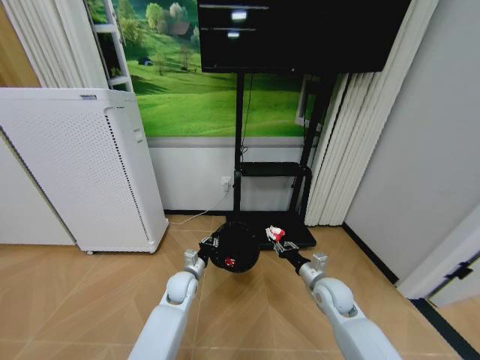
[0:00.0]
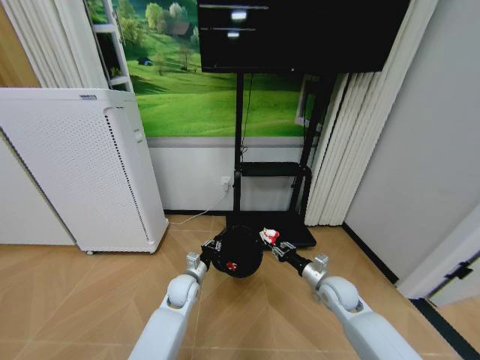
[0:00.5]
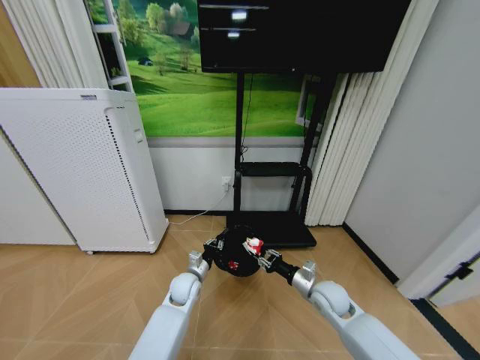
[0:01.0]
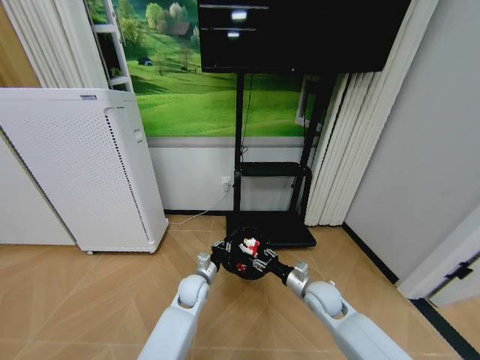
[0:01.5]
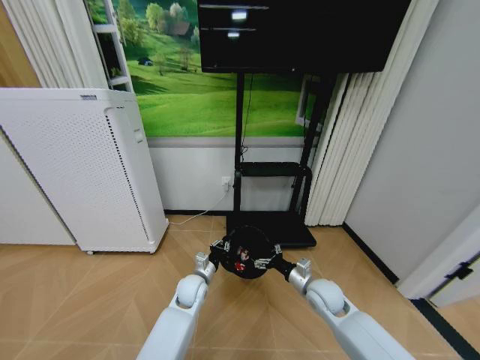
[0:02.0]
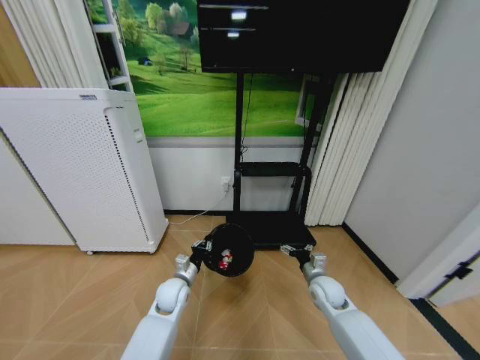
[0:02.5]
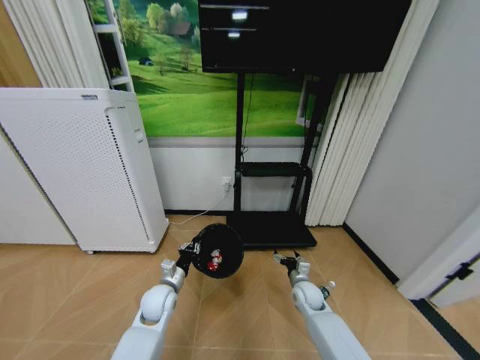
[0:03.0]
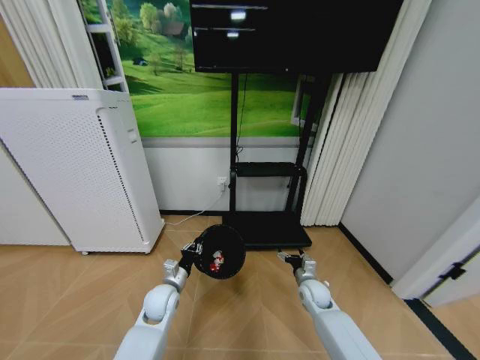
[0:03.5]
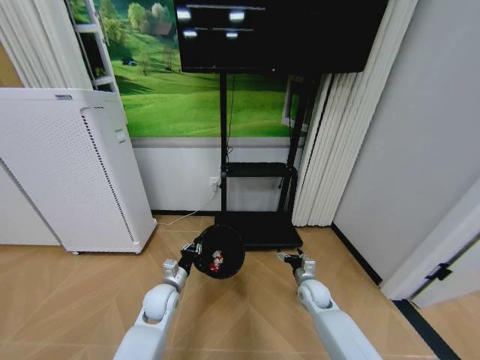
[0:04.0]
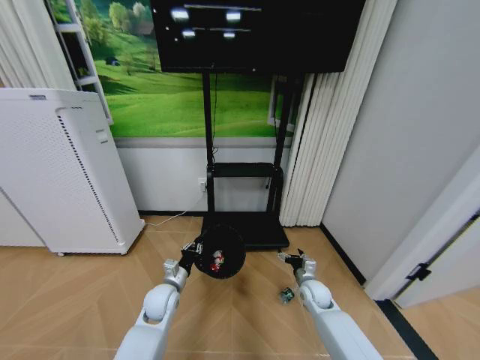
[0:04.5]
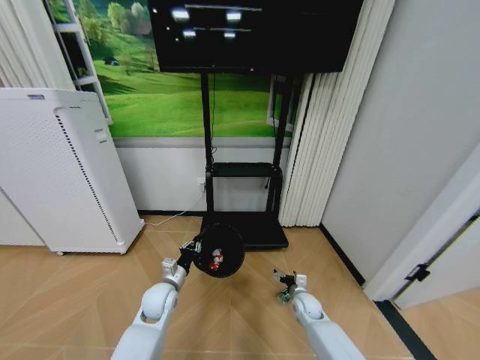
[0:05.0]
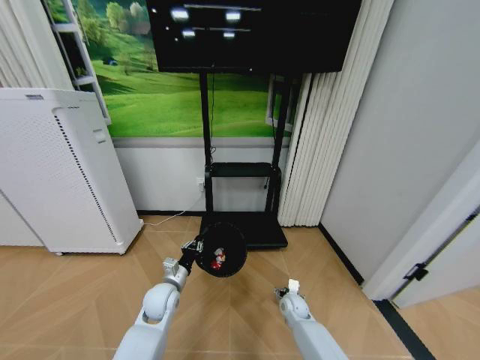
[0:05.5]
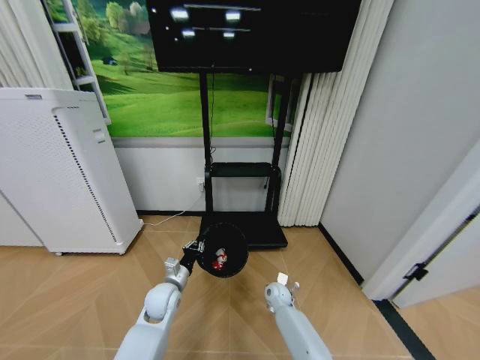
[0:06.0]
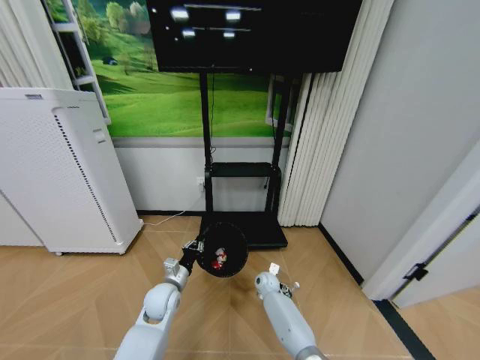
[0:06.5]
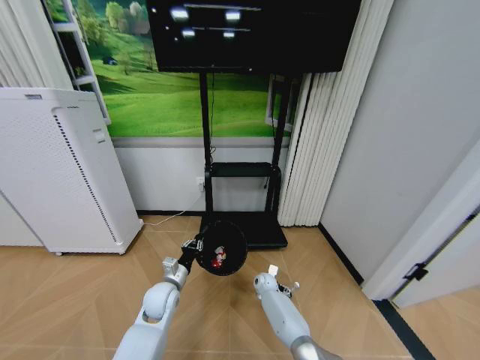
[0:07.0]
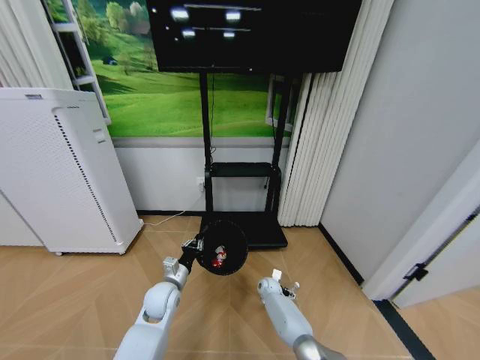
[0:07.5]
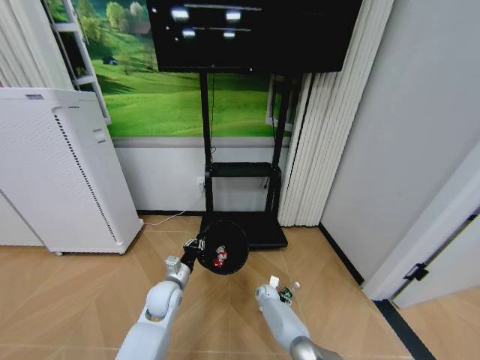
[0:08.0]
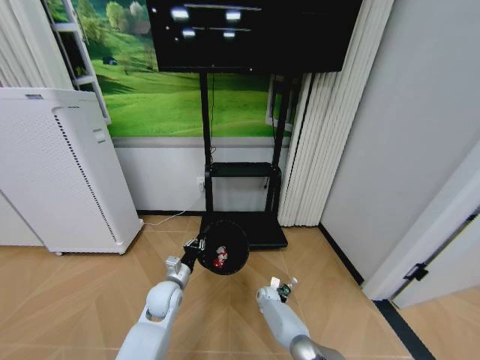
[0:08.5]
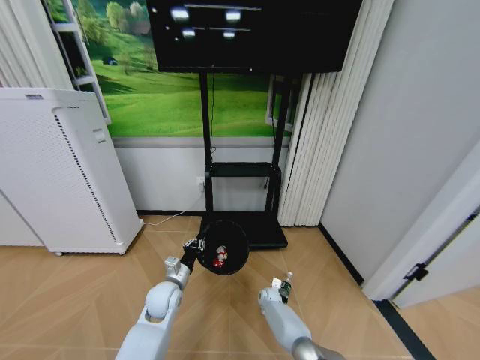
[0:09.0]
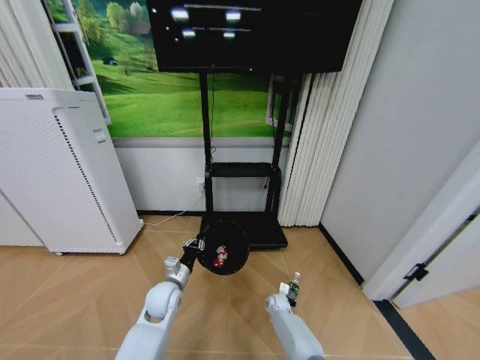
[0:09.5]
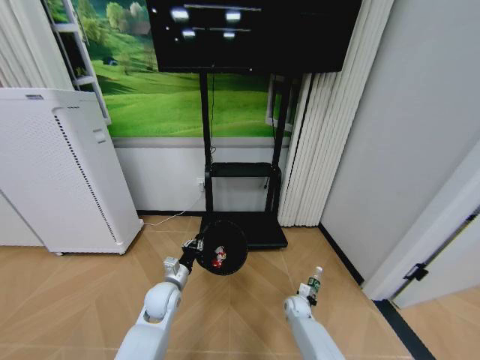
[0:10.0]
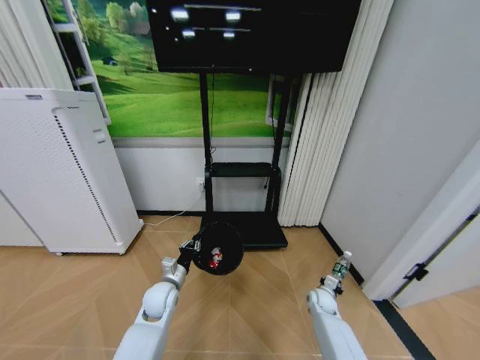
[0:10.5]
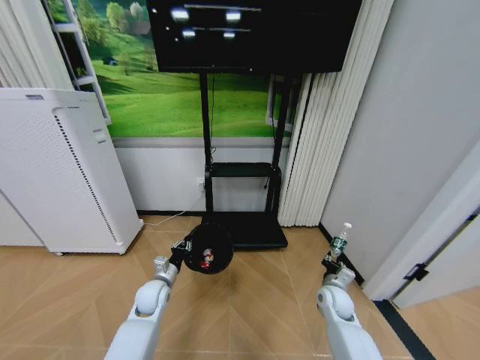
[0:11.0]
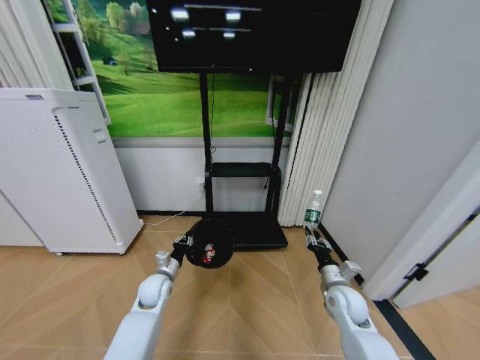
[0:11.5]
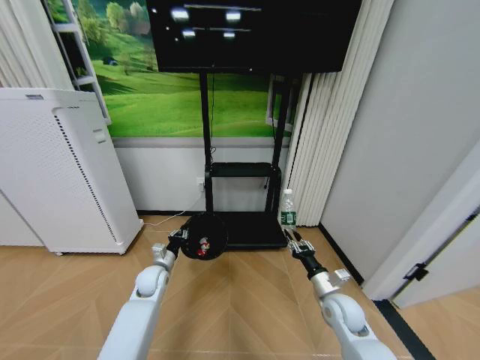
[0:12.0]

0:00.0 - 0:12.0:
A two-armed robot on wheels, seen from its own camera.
Task of the whole recording: Pick up the trash bin and place the garbage on the floor into it.
0:00.0 - 0:02.0: The right gripper opens.
0:02.0 - 0:04.0: The right gripper shifts some 10 cm downward. Meanwhile the left gripper goes about 10 cm to the left.
0:04.0 - 0:06.0: The right gripper moves to the left and downward, roughly 10 cm.
0:06.0 - 0:08.0: The right gripper travels downward by roughly 10 cm.
0:08.0 - 0:10.0: The right gripper heads to the right and backward, covering about 10 cm, and closes its fingers.
0:10.0 - 0:12.0: The right gripper shifts approximately 25 cm upward and backward. The left gripper moves forward and to the left, some 10 cm.

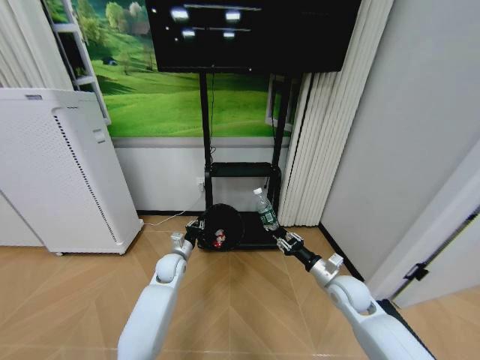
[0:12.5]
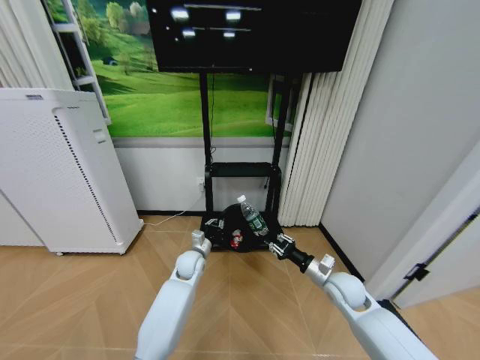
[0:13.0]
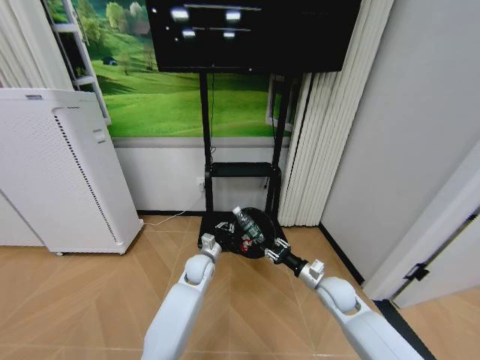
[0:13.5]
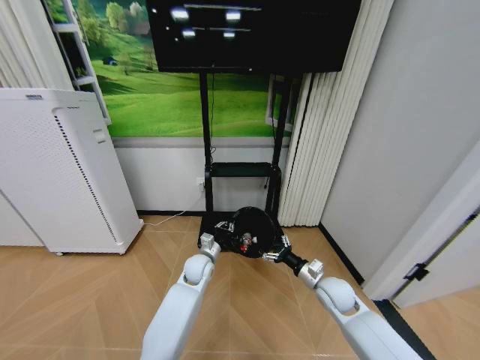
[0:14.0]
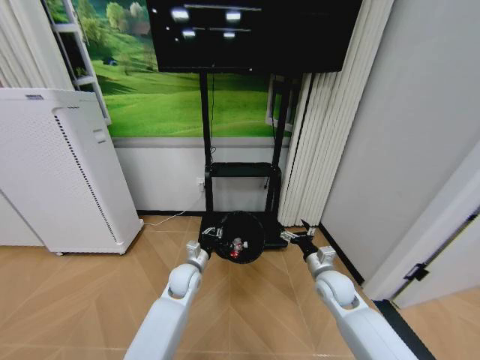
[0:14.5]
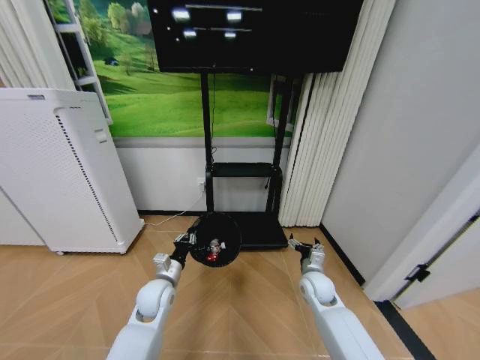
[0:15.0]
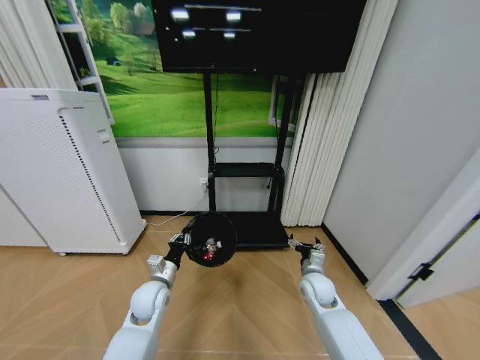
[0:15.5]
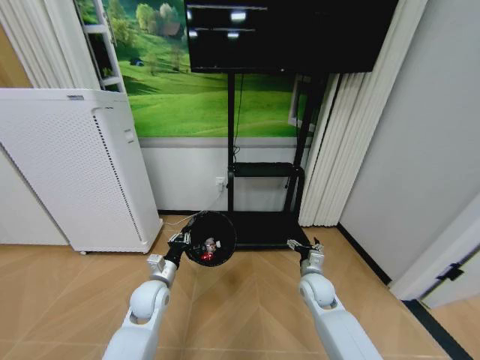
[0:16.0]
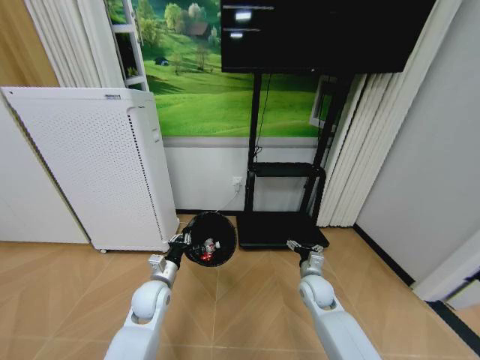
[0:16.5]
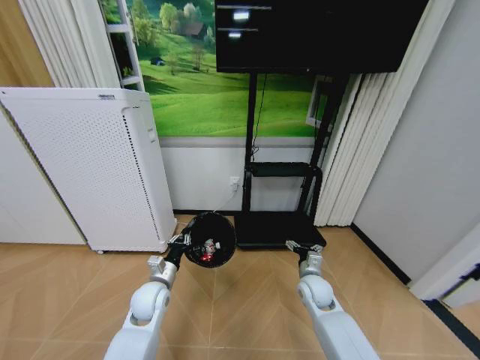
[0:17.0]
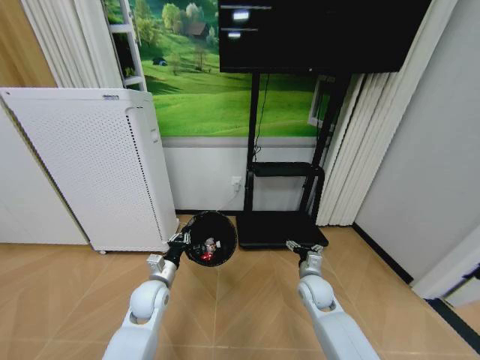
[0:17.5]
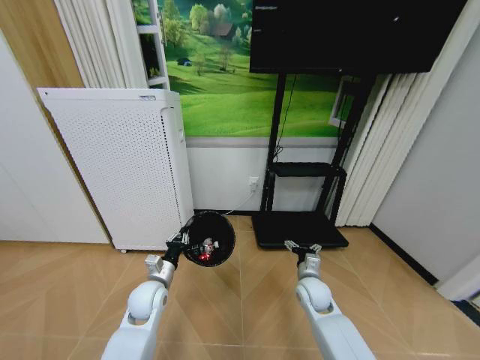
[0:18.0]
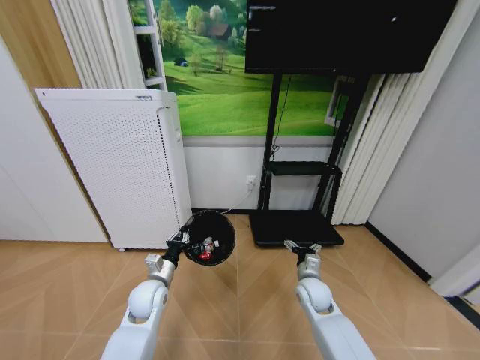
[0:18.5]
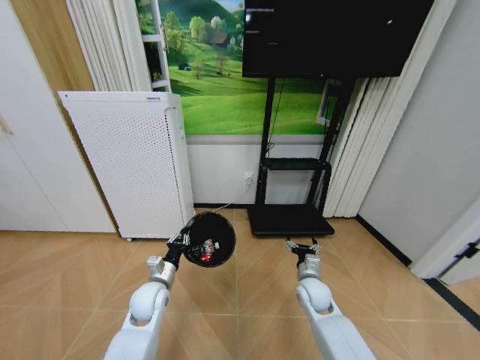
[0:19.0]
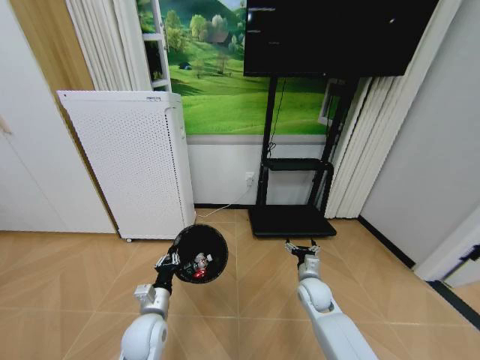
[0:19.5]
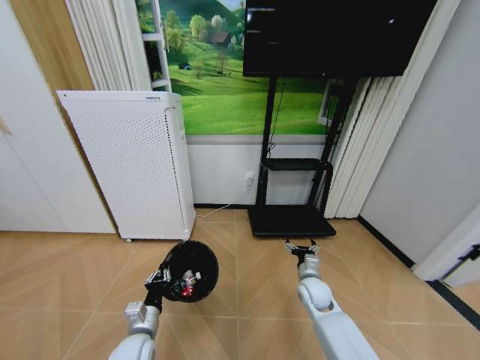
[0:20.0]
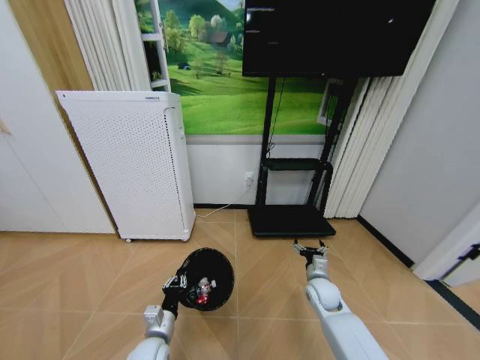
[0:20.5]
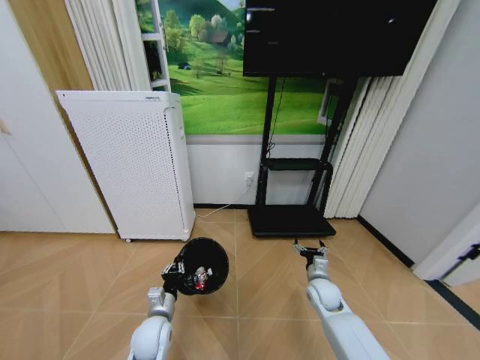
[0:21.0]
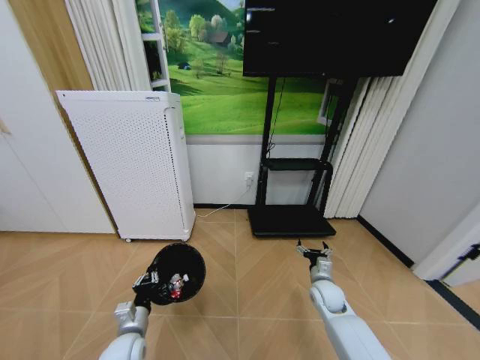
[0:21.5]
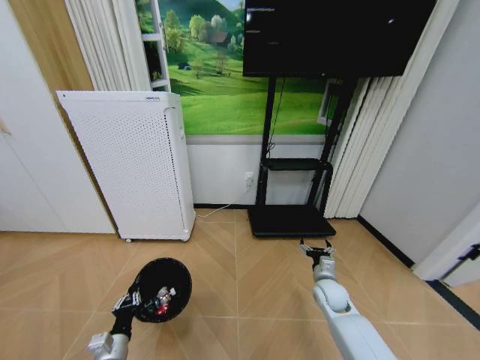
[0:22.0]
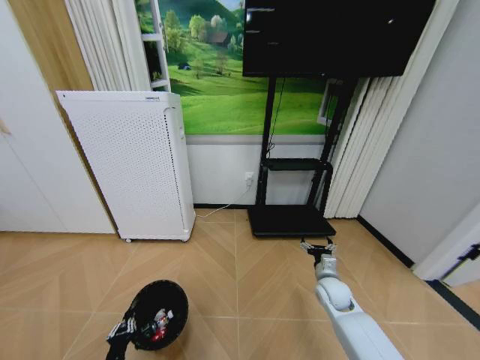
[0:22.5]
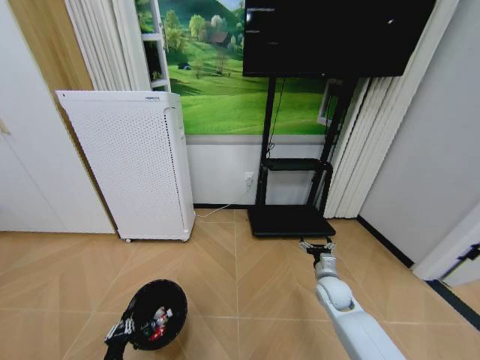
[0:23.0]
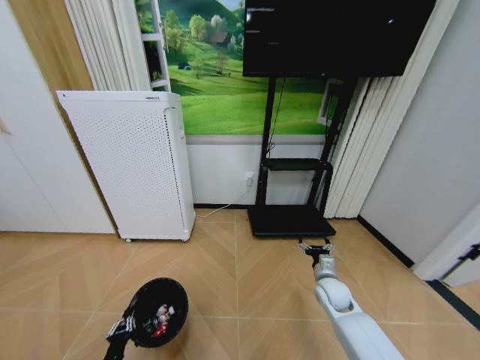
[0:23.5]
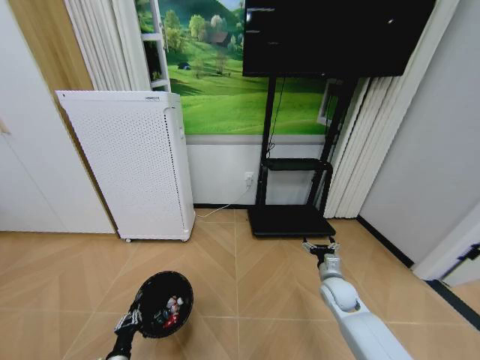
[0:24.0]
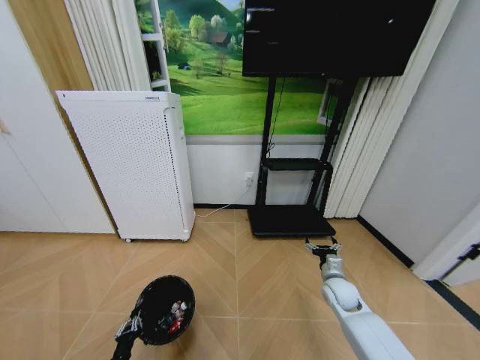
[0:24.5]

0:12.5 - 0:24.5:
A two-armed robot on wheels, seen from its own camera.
Task of the whole recording: Pick up the trash bin and place the garbage on the floor into it.
0:12.5 - 0:14.5: The right gripper opens; the left gripper heads to the right and backward, covering some 10 cm.
0:14.5 - 0:16.5: The left gripper travels to the left and backward by approximately 10 cm, while the right gripper moves some 5 cm.
0:18.5 - 0:20.5: The right gripper shifts by approximately 5 cm, while the left gripper moves backward and downward, about 15 cm.
0:20.5 - 0:22.5: The left gripper travels to the left, downward and backward by about 20 cm.
0:22.5 - 0:24.5: There are only small adjustments of the grippers.

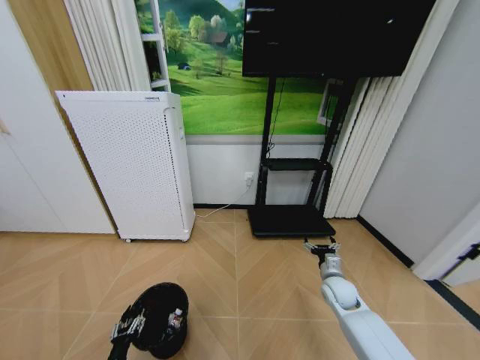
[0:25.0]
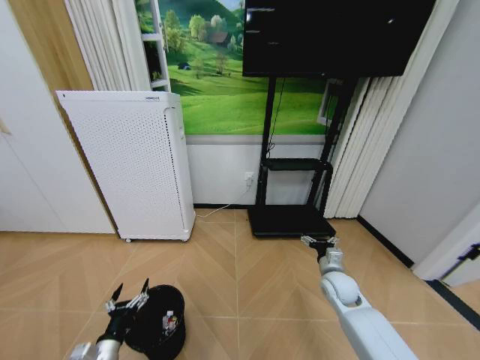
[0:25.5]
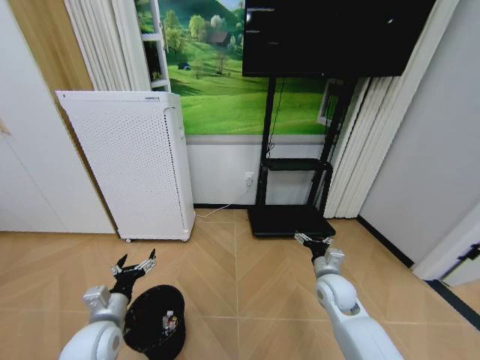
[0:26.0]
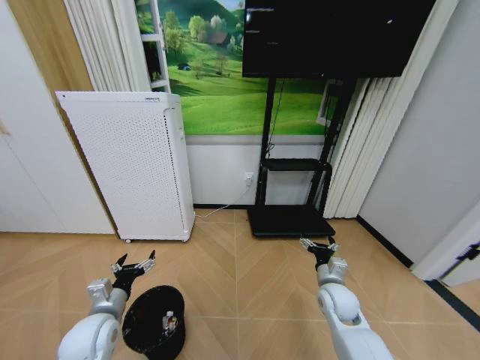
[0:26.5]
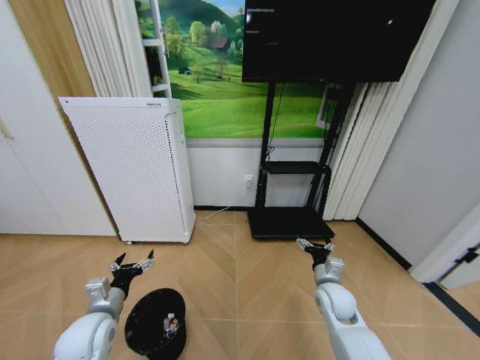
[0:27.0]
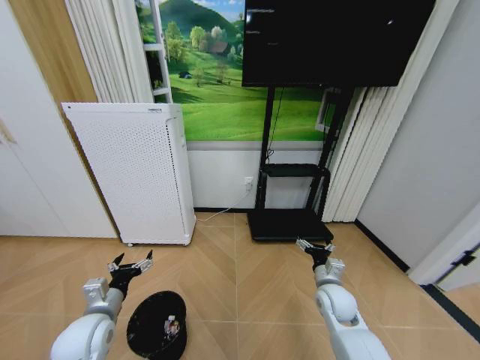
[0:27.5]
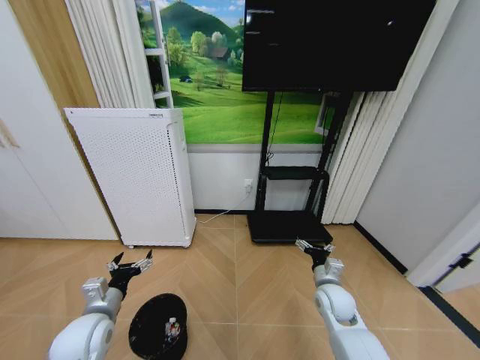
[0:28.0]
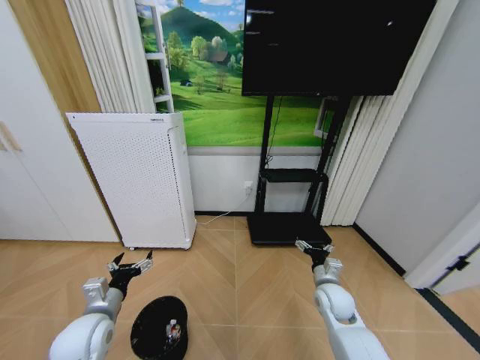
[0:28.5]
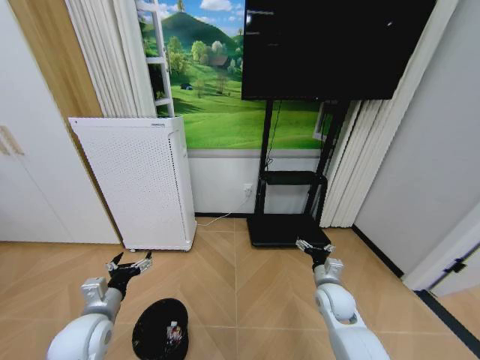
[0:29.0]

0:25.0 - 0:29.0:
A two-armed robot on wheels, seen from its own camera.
Task of the whole recording: Pick up the trash bin and place the garbage on the floor into it.
0:25.0 - 0:27.0: The left gripper travels upward and forward by roughly 25 cm, and opens up; the right gripper travels to the left by some 5 cm.
0:27.0 - 0:29.0: Neither gripper changes place.
